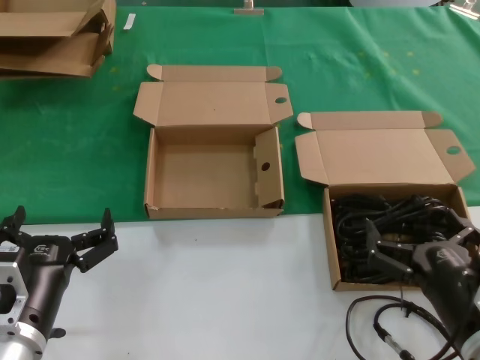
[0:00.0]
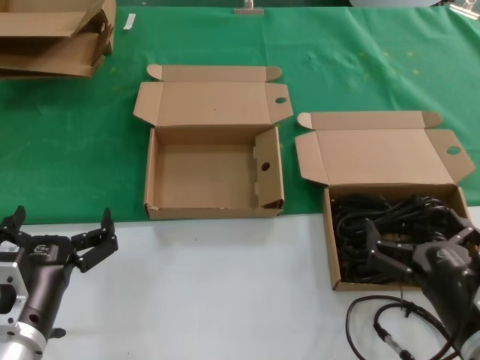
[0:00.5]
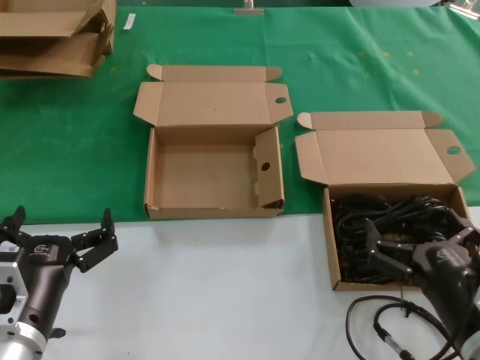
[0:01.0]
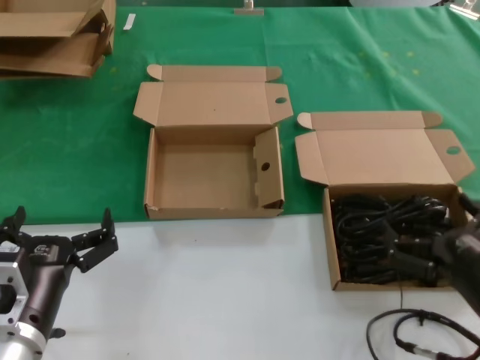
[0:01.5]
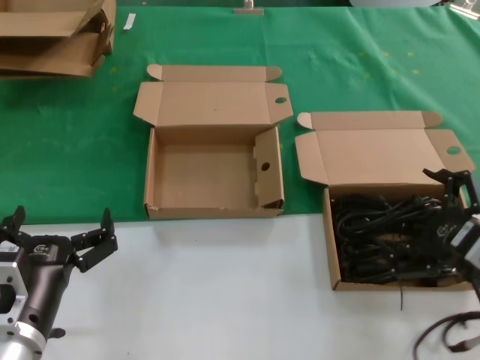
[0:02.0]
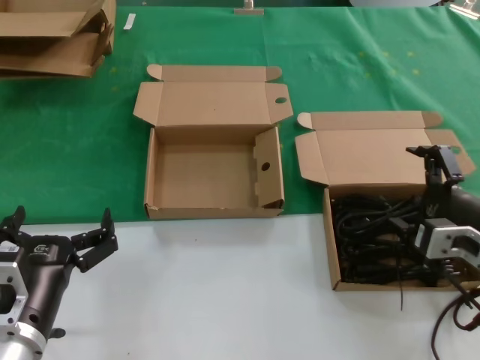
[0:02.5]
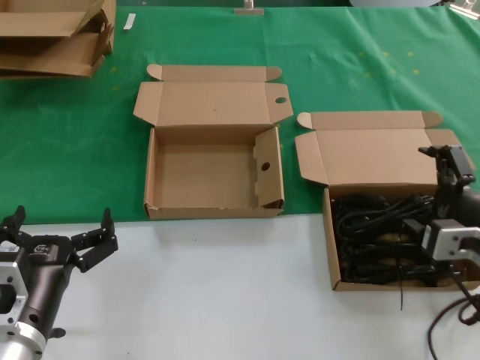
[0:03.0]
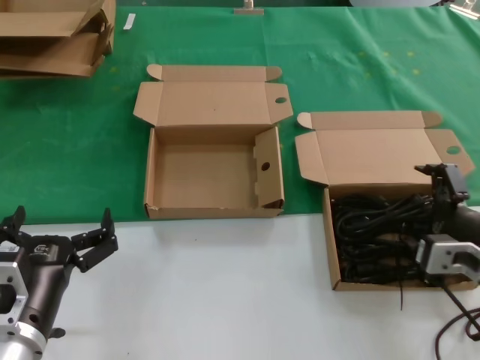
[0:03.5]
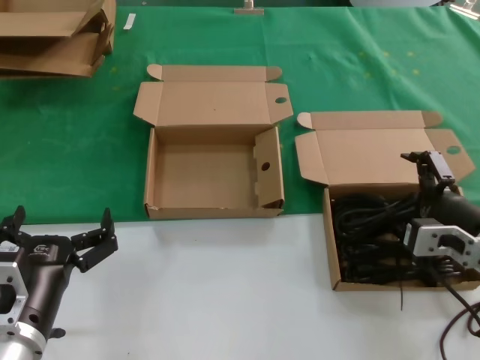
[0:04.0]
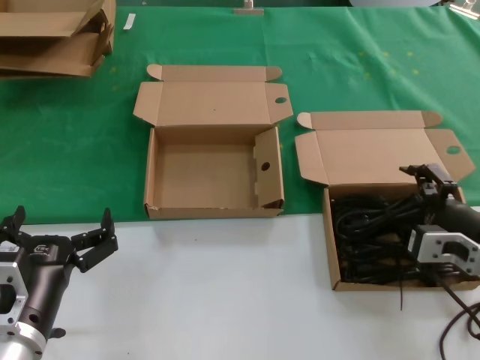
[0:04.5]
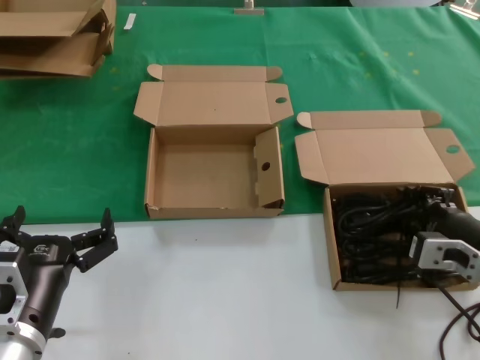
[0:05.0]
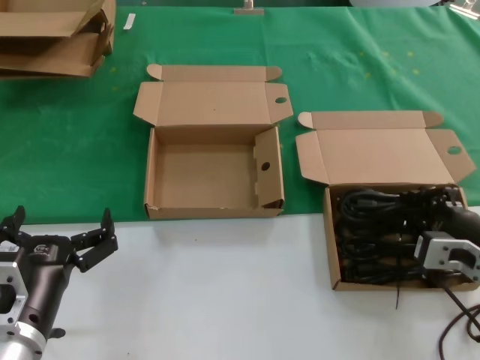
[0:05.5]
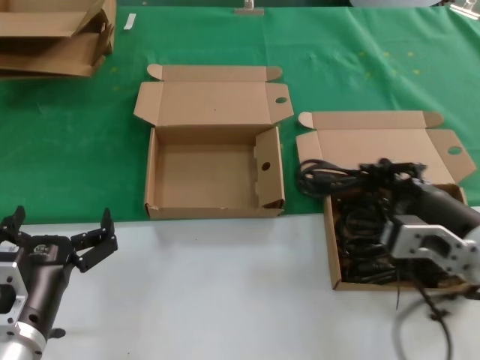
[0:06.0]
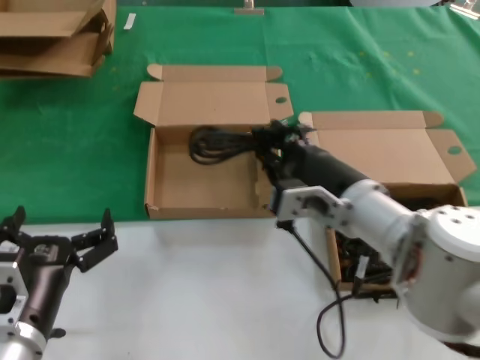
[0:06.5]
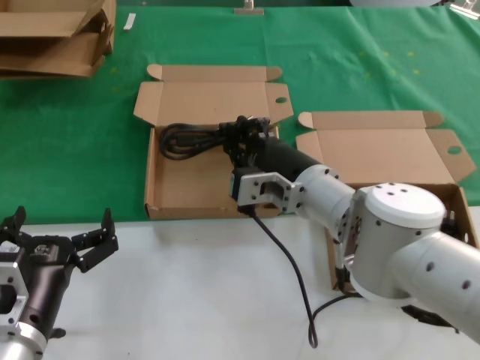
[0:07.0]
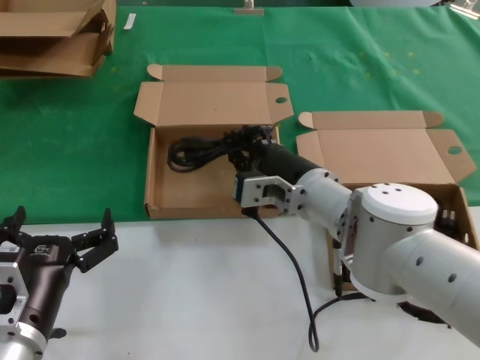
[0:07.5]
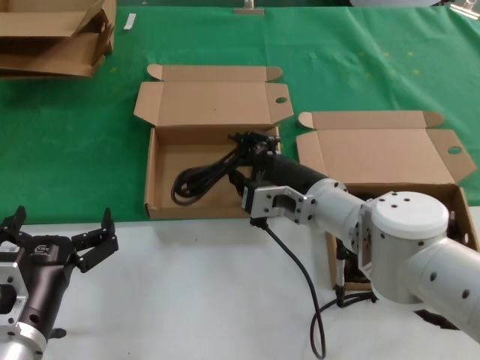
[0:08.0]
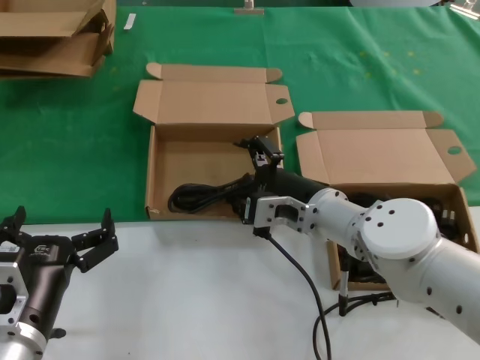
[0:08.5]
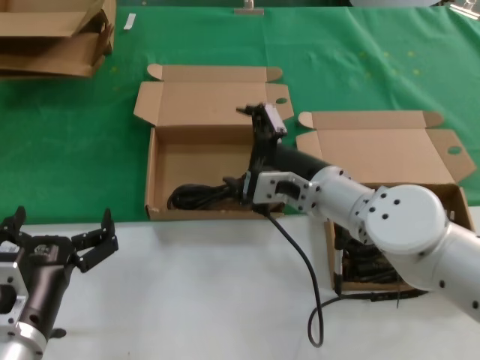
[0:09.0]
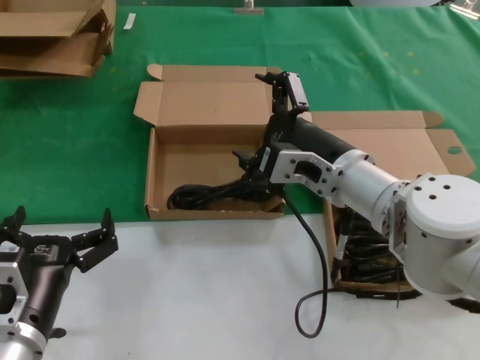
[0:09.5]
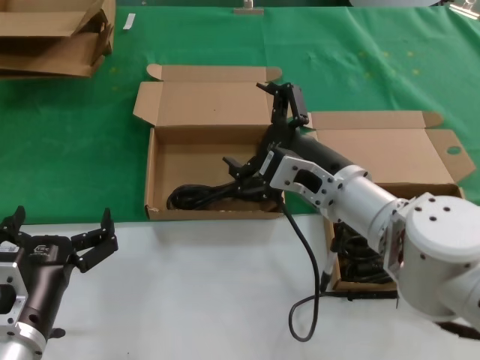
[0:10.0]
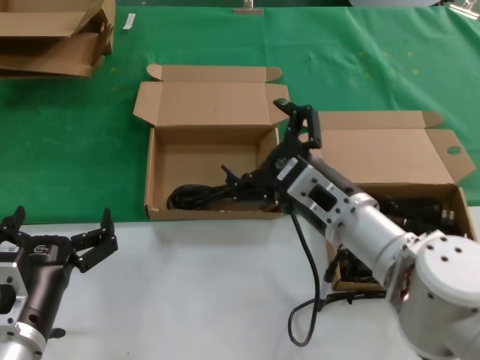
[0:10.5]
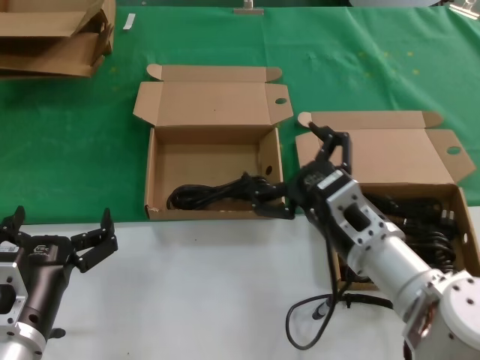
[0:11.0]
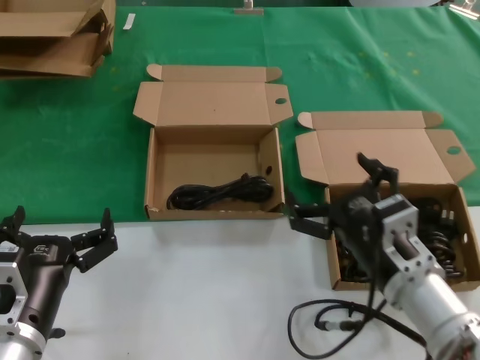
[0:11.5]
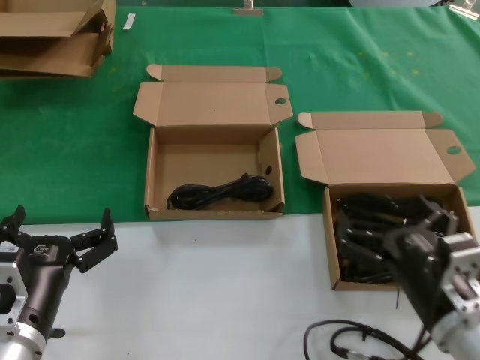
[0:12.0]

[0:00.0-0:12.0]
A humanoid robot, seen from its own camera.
Task of the whole recording: take the parts from the box containing them and put them into an empty box.
Step, 0:00.0 to 0:05.0: Grasp the data cable.
Step, 0:05.5 to 0:08.5: Place the data cable in the another box.
0:00.0 to 0:02.0: The right hand goes roughly 10 cm upward and to the right.
0:02.0 to 0:04.0: The right hand goes approximately 10 cm forward.
0:04.0 to 0:06.0: The right hand changes place by approximately 5 cm.
0:06.0 to 0:08.0: The right hand heads to the left and forward, covering about 20 cm.
0:08.0 to 0:10.0: The right hand ends up some 5 cm from where it was.
0:10.0 to 0:12.0: The right hand goes roughly 20 cm backward, downward and to the right.

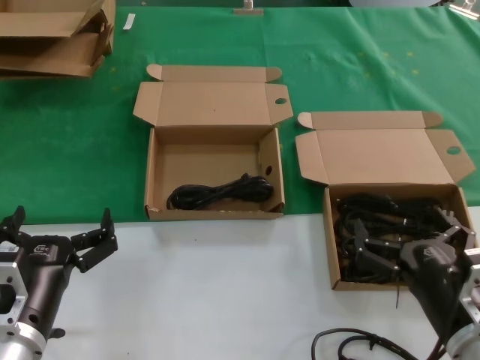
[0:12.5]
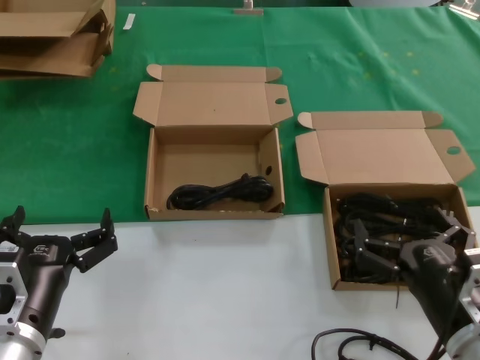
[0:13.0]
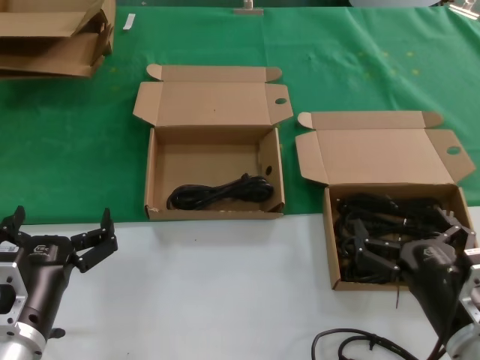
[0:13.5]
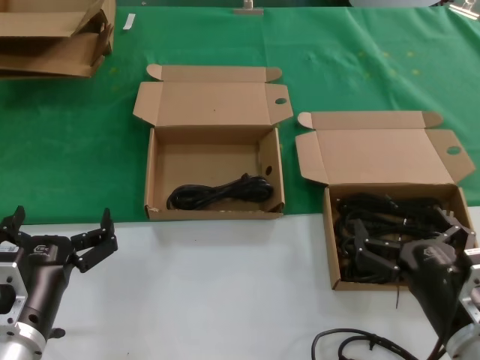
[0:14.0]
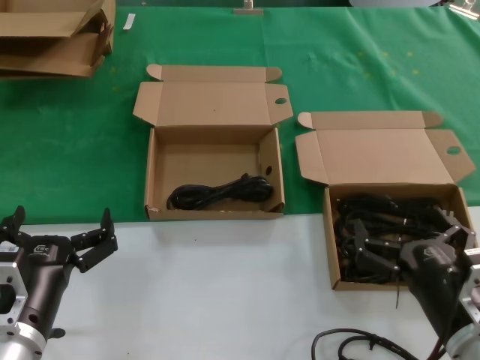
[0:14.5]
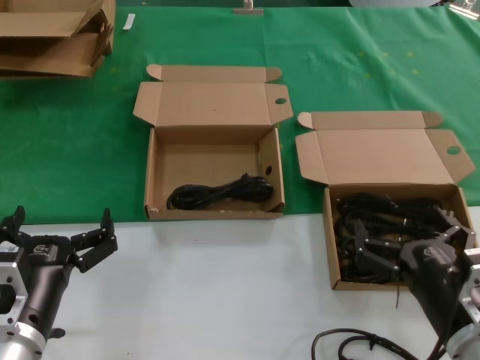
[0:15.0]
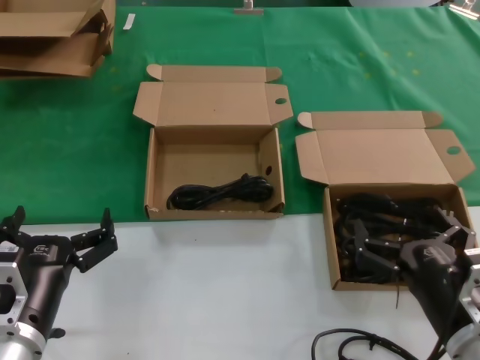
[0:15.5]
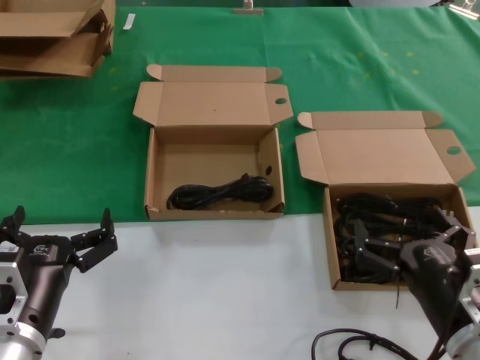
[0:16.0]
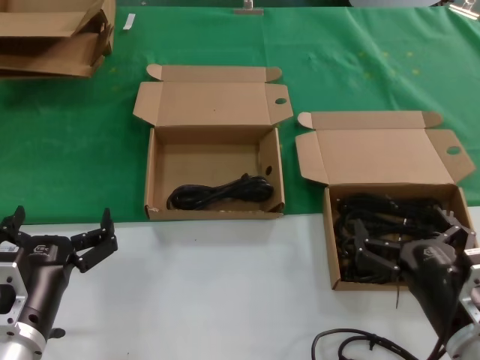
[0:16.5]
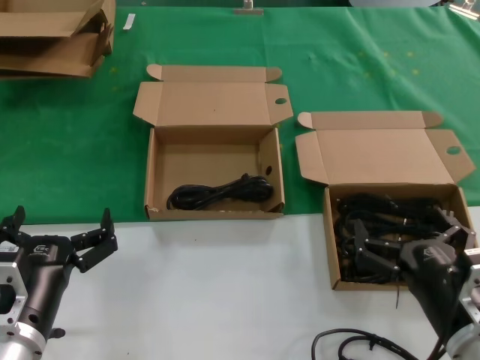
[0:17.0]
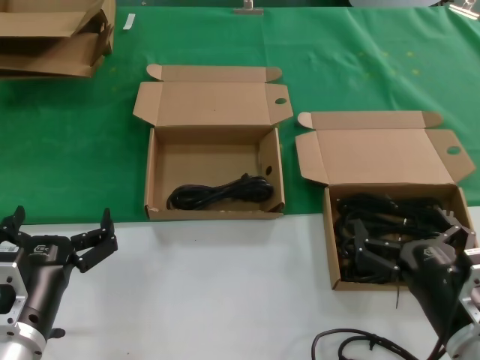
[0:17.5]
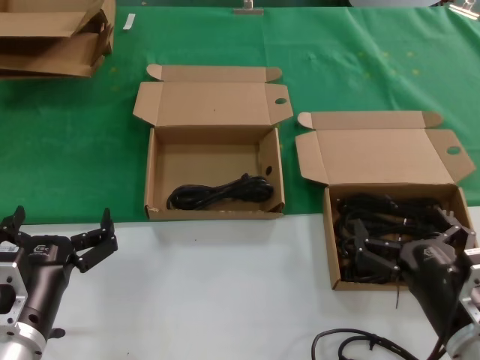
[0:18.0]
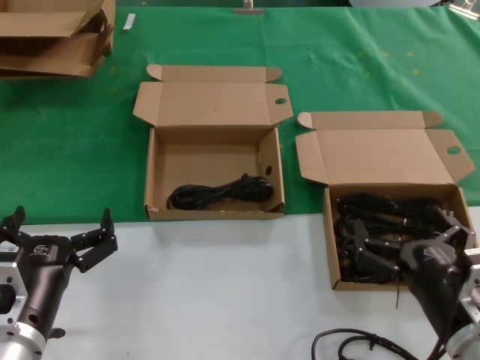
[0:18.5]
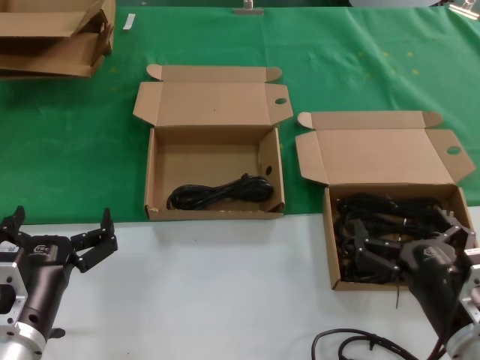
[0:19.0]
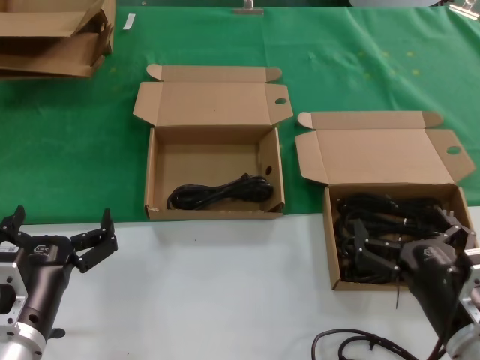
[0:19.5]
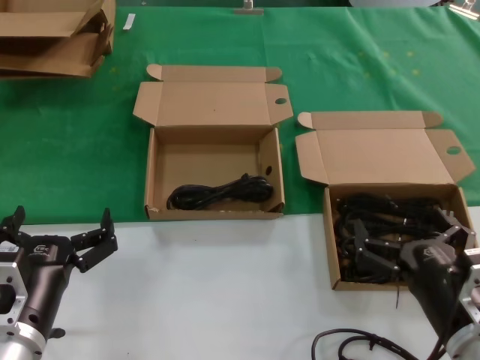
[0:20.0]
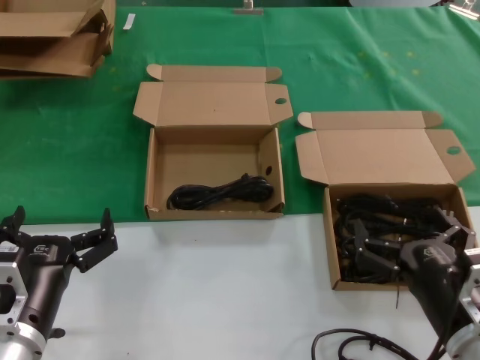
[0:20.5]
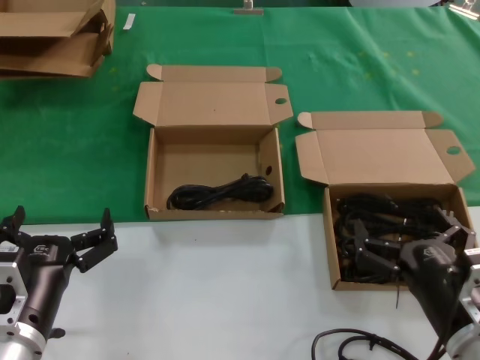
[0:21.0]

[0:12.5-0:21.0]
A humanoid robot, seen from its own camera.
Task of the whole recording: take the parts from the box containing them and put them into an empty box.
0:12.5 to 0:21.0: Both hands stay put.
